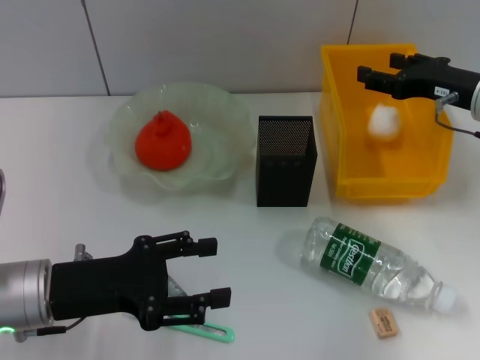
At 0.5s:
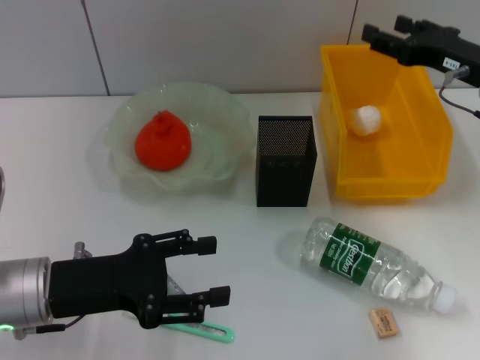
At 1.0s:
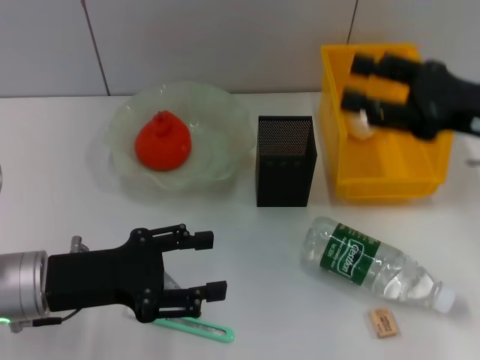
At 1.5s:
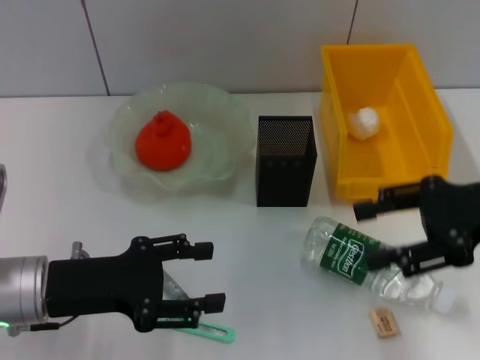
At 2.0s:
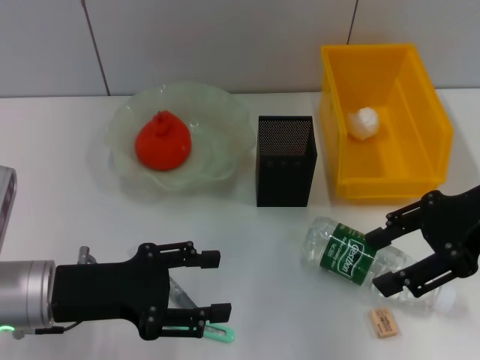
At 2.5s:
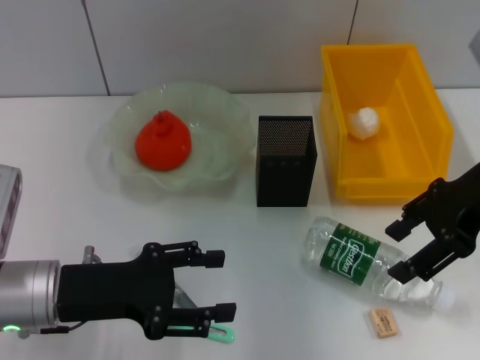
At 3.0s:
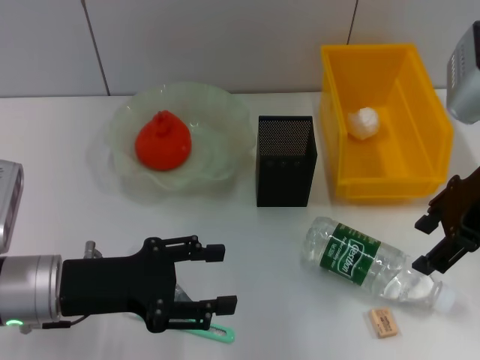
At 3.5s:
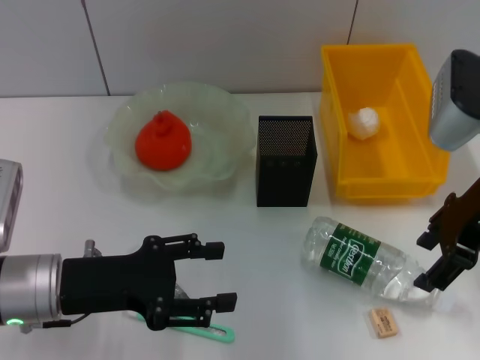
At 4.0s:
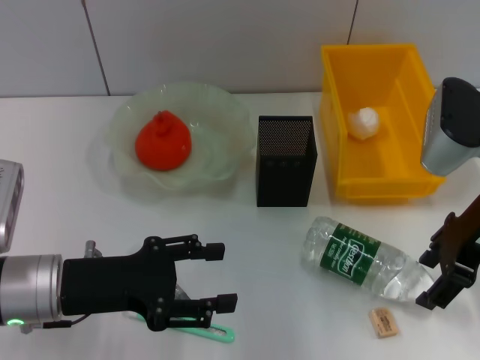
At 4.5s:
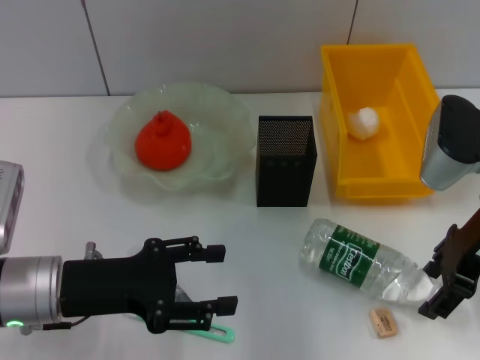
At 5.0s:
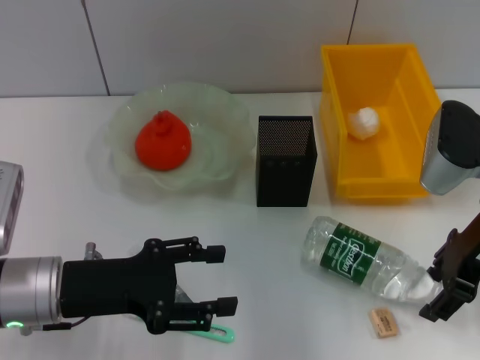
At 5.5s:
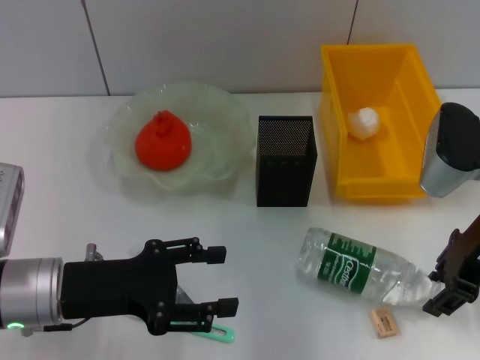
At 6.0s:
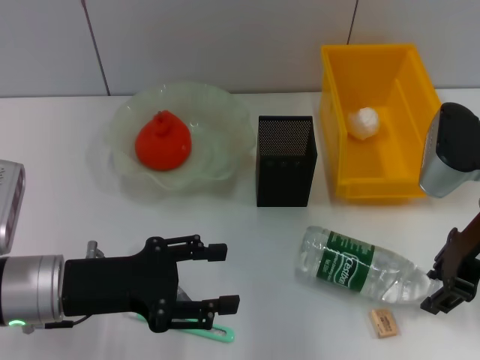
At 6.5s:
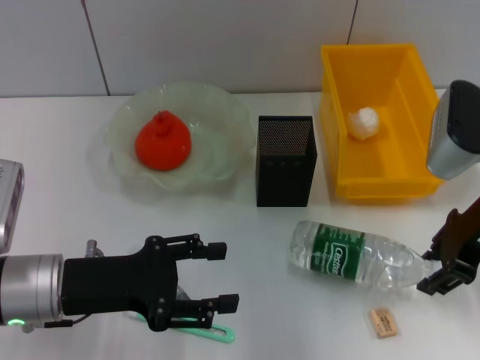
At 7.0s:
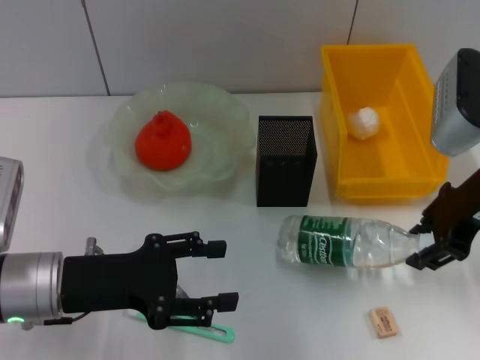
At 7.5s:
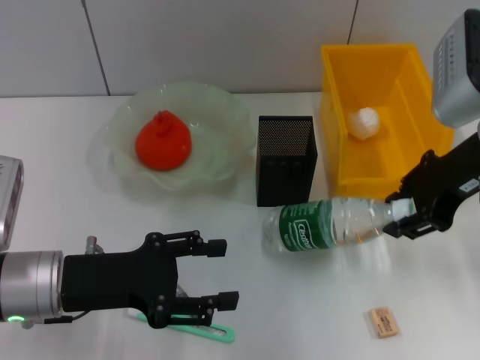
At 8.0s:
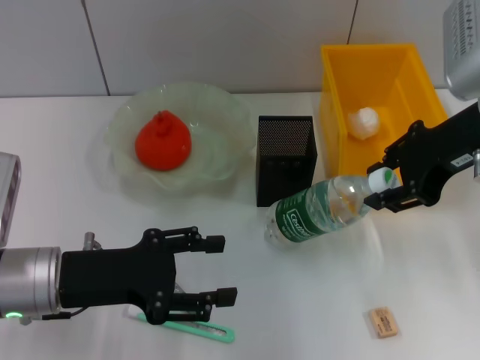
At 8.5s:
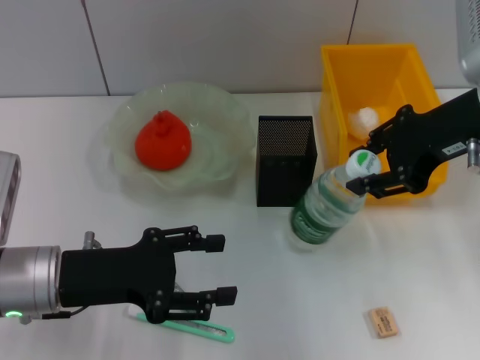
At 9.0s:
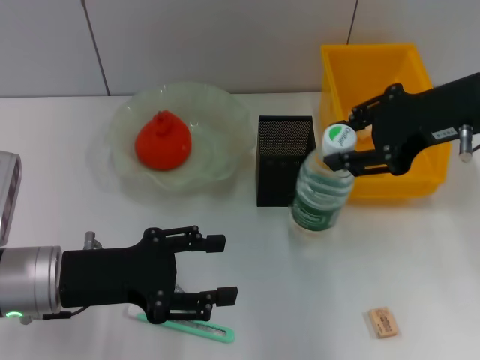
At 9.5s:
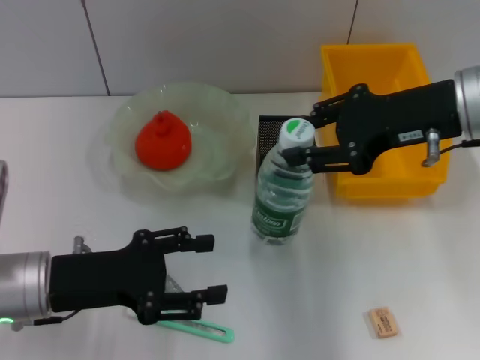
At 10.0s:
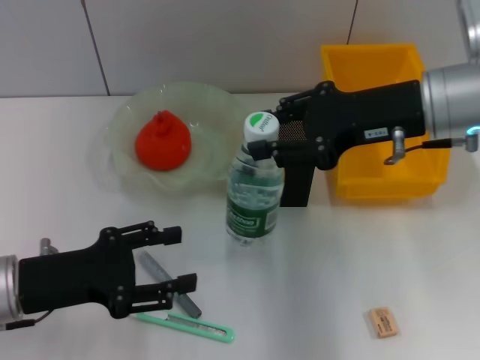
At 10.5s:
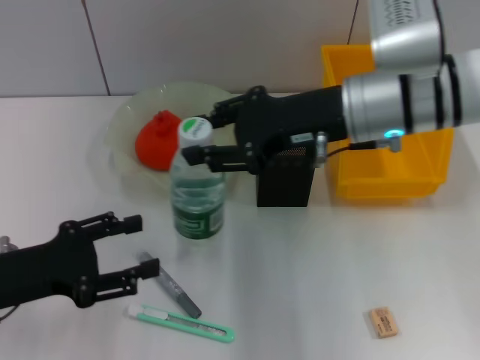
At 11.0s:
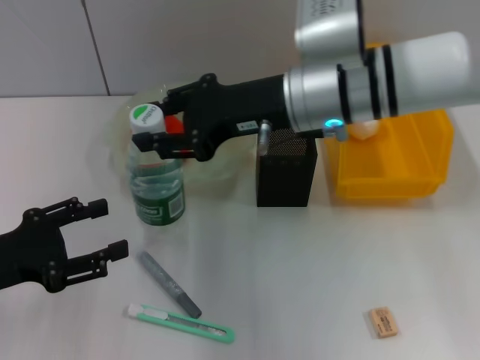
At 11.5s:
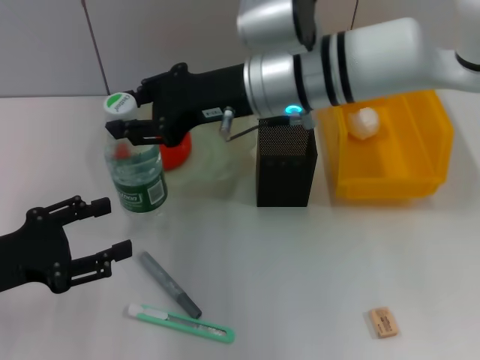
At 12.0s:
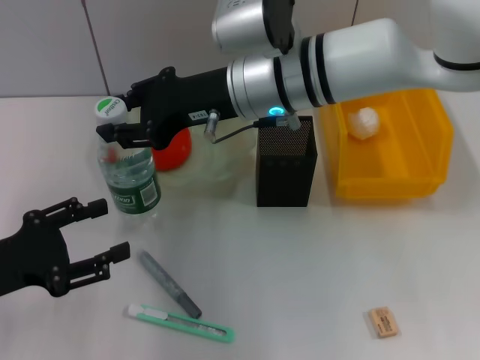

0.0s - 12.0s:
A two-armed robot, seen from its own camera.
Step, 0.5s - 6.0s: Grab the water bottle with the right hand.
0.0s - 2.0s: The right gripper moves backward and upward, roughly 10 cm.
2.0s - 4.0s: The right gripper moves about 5 cm.
4.0s - 6.0s: The right gripper closes its fingers.
6.0s - 8.0s: The right gripper travels upward by about 10 cm.
10.0s - 12.0s: The right gripper goes approximately 15 cm to the left, while the left gripper moves to the left, approximately 5 cm.

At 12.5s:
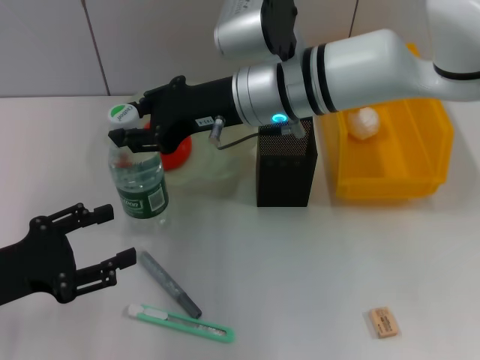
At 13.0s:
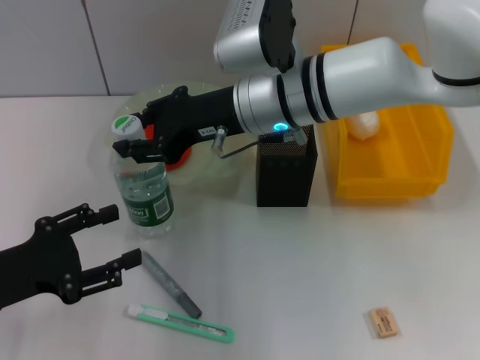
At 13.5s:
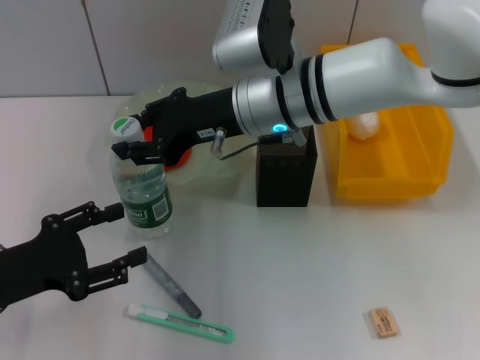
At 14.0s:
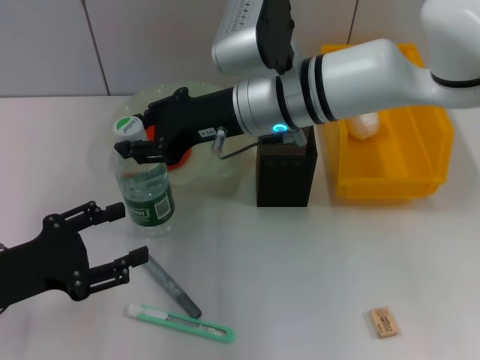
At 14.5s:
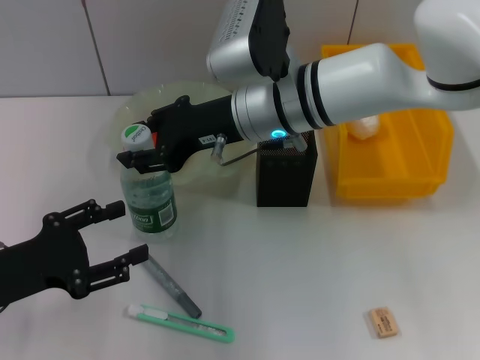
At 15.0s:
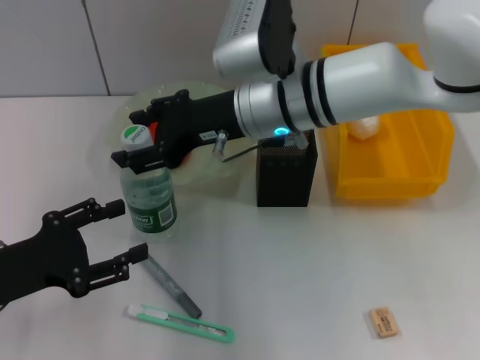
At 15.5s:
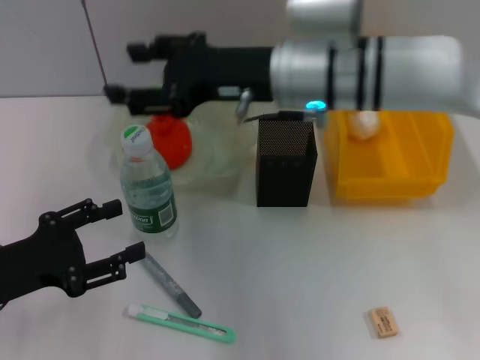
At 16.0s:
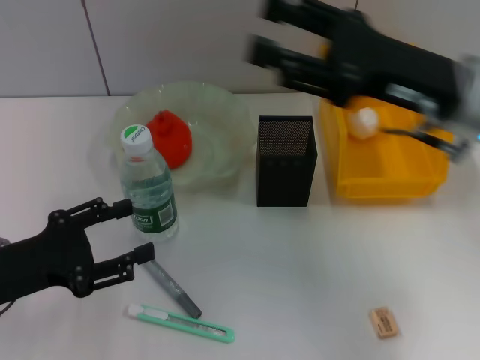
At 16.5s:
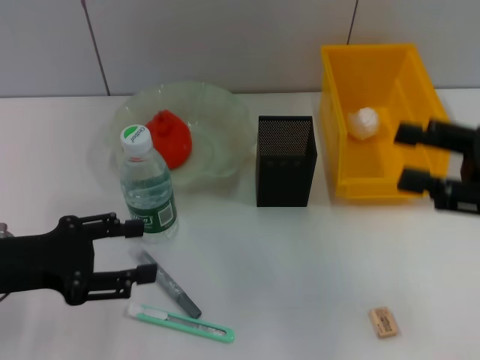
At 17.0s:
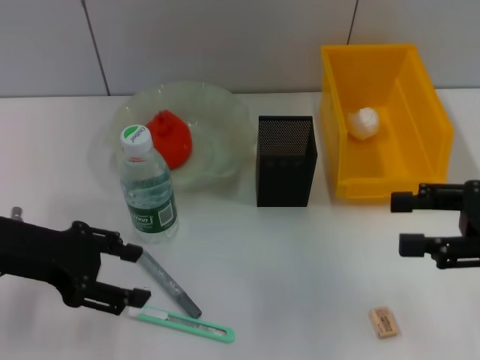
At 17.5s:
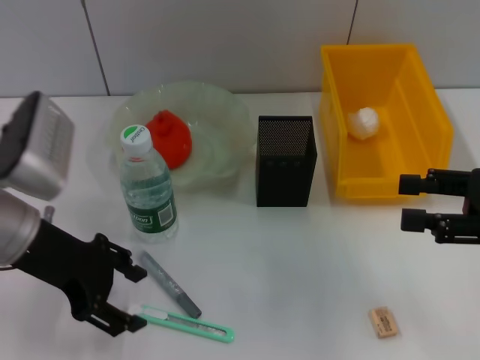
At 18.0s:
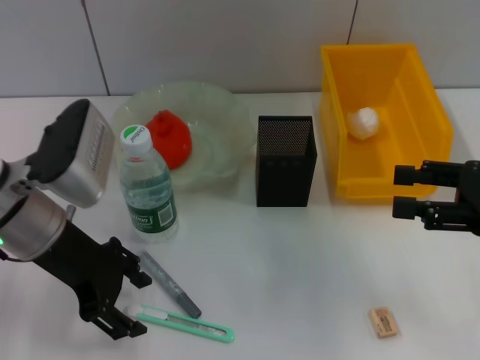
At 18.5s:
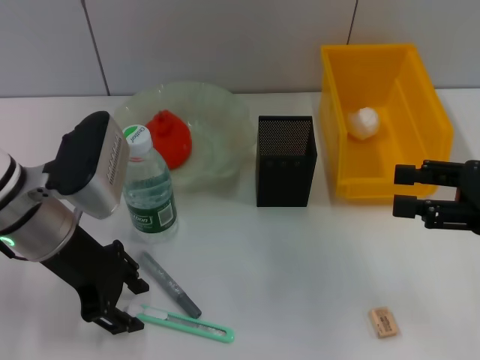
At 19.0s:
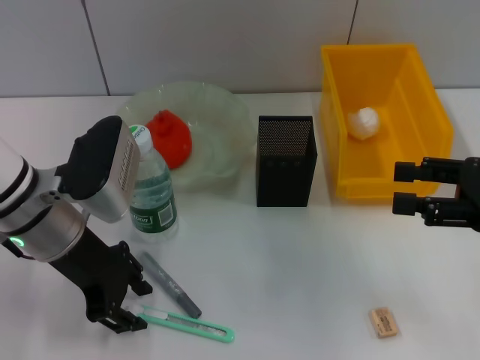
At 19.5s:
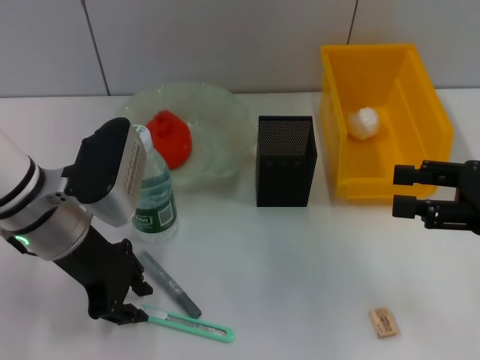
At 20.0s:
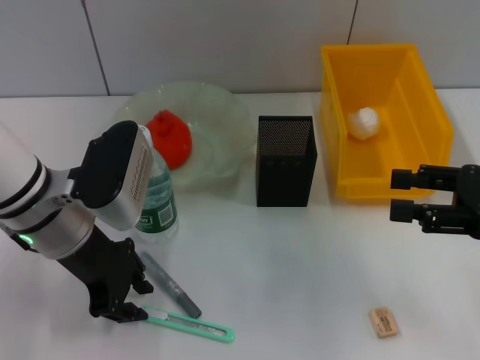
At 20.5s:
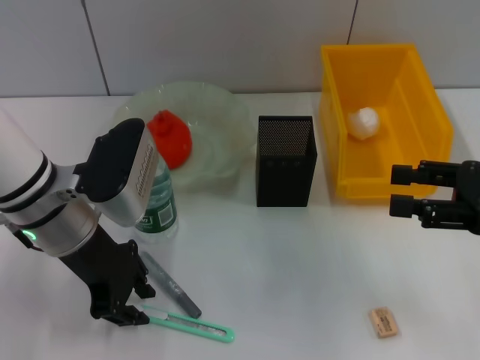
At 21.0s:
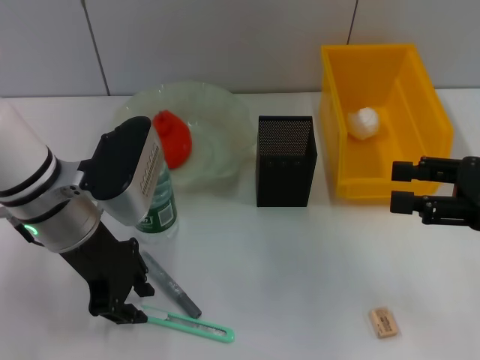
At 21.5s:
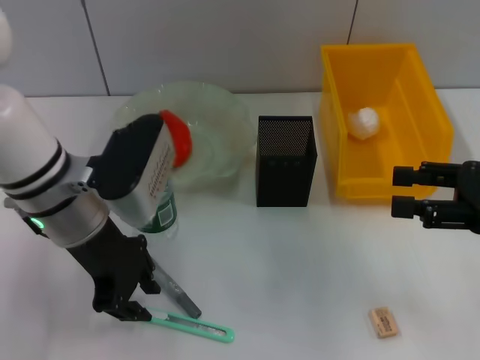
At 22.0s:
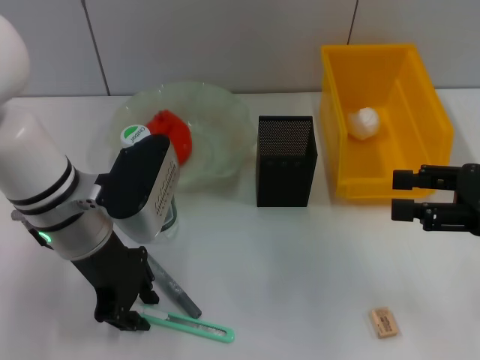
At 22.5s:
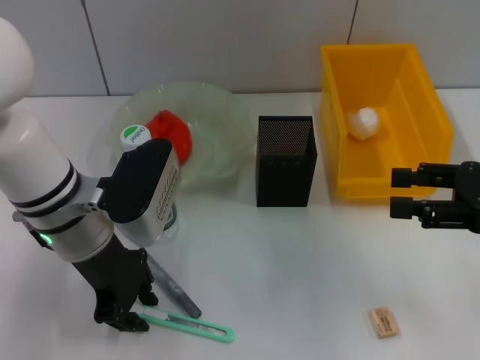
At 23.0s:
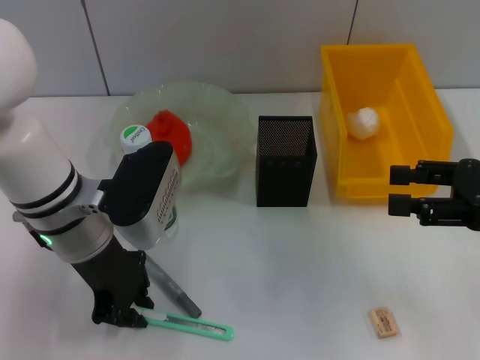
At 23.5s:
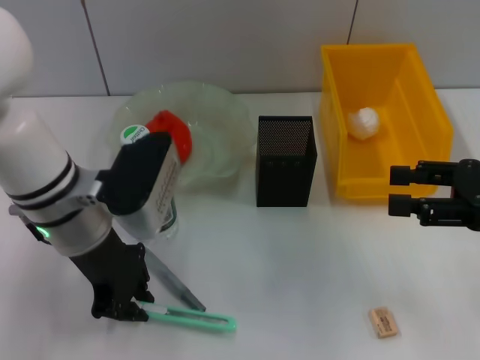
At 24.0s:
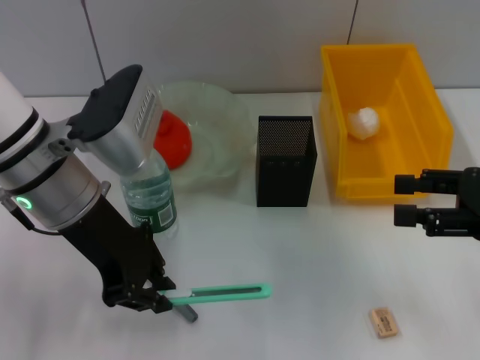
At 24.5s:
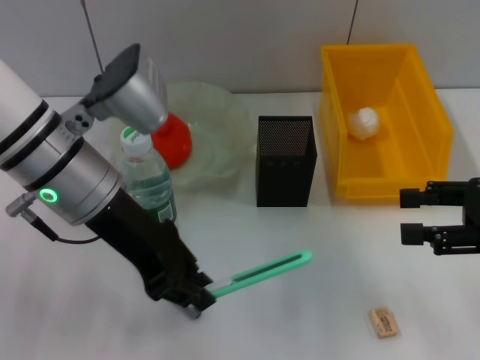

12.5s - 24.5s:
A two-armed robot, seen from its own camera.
Step, 12.5s - 14.5s: Place the water bottle on the table with the right hand.
Step, 15.5s - 23.0s: Grab the blue utility knife with the left hand.
12.5s - 14.5s: The two grippers keep their place.
14.5s - 16.5s: The right gripper shifts roughly 30 cm to the right and backward, and opens.
16.5s - 18.5s: The left gripper travels to the right and forward by some 10 cm.
18.5s - 22.5s: The grippers move only a little.
22.5s - 24.5s: The left gripper heads upward, covering about 5 cm.

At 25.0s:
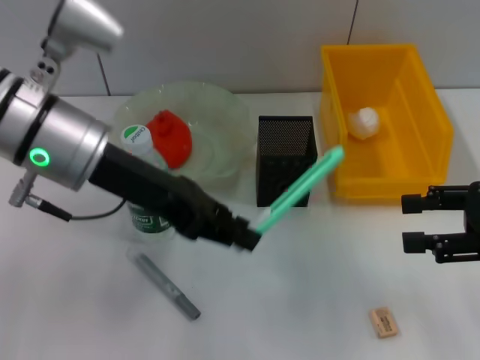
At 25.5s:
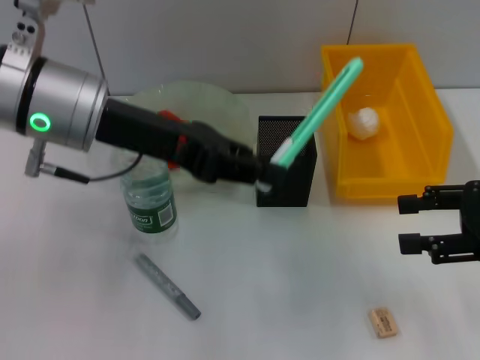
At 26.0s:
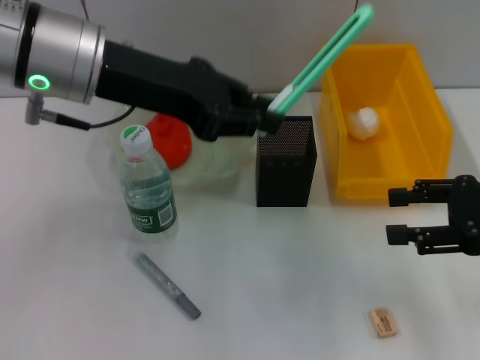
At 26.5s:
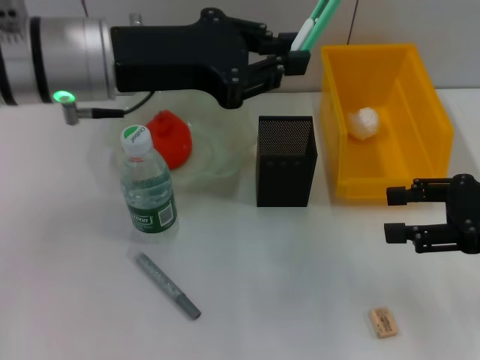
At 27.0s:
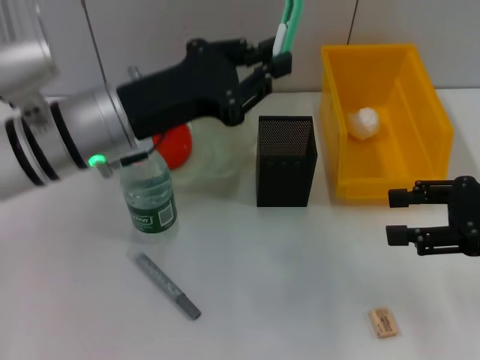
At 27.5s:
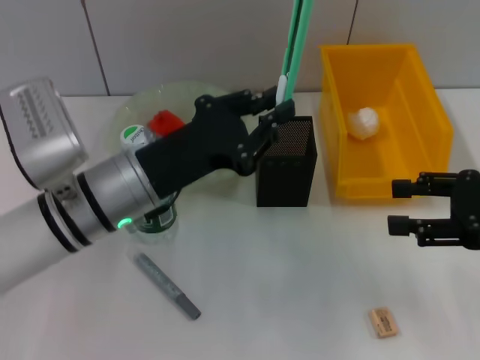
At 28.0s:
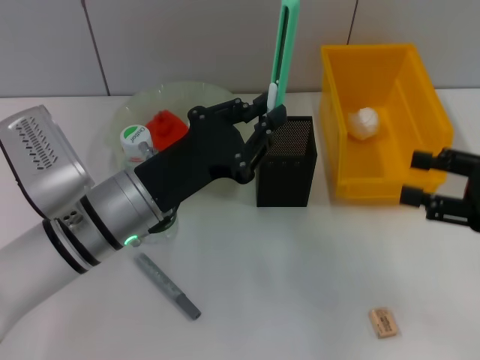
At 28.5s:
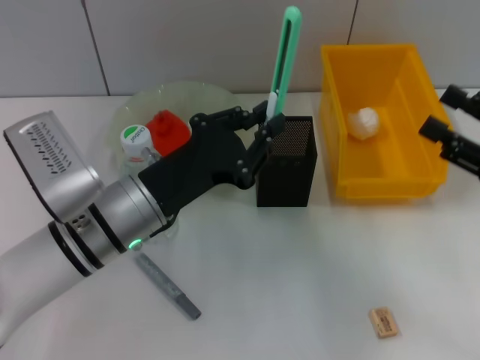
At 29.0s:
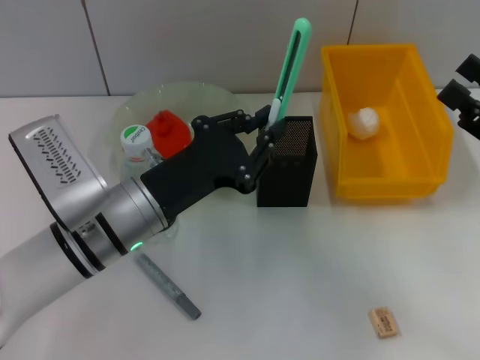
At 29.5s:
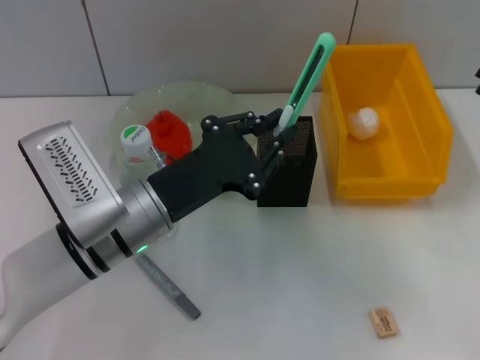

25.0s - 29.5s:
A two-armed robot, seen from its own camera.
25.0s - 27.0s: The left gripper changes place by approximately 5 cm.
27.0s - 29.5s: The left gripper heads downward, covering approximately 10 cm.
